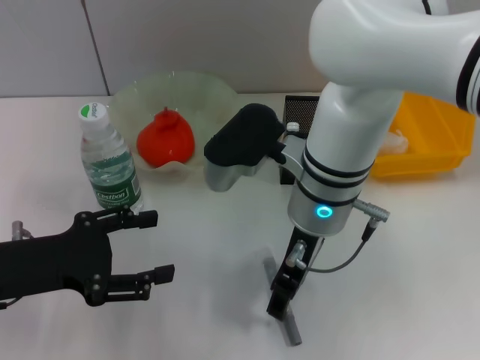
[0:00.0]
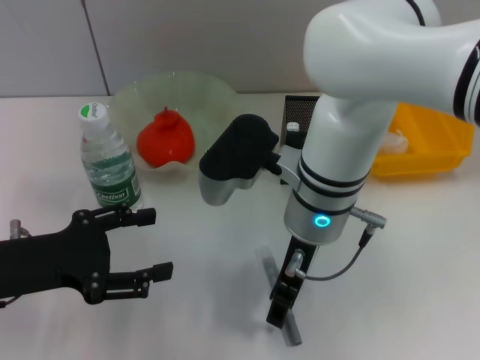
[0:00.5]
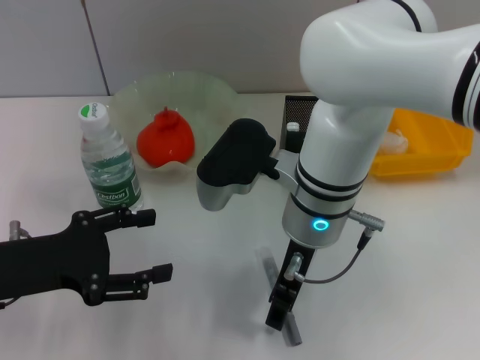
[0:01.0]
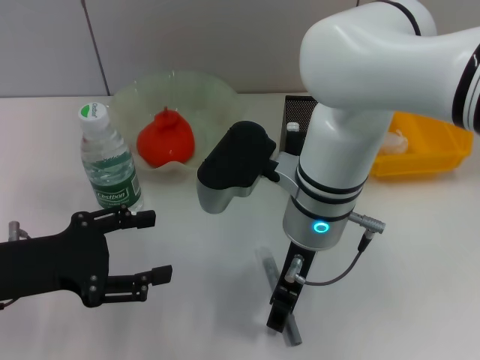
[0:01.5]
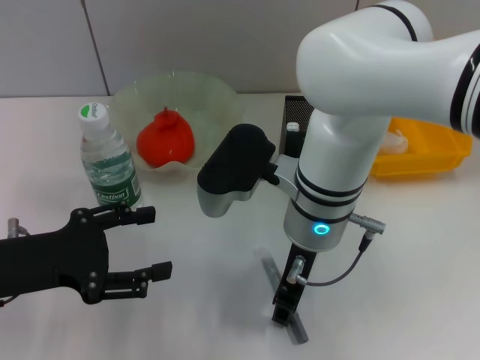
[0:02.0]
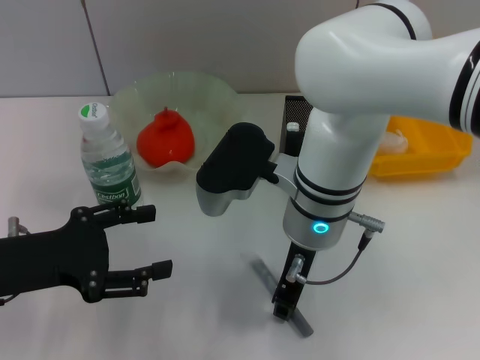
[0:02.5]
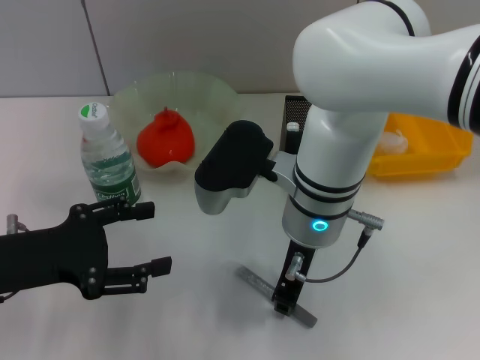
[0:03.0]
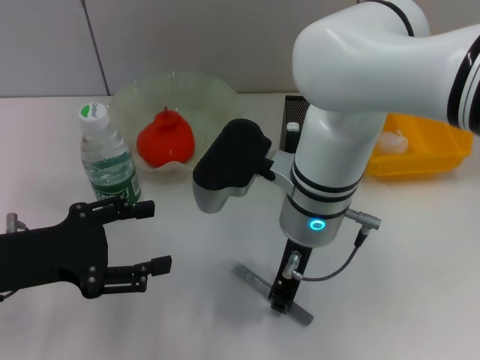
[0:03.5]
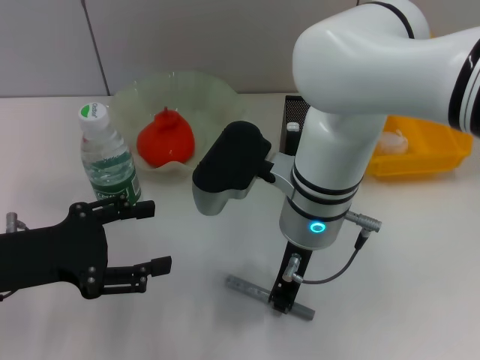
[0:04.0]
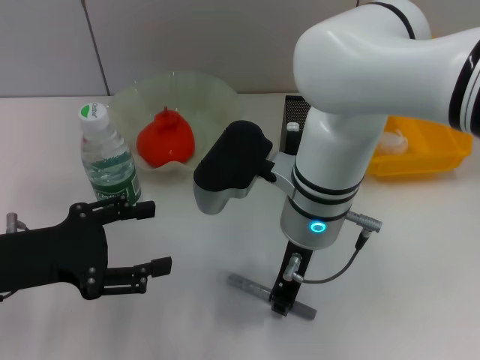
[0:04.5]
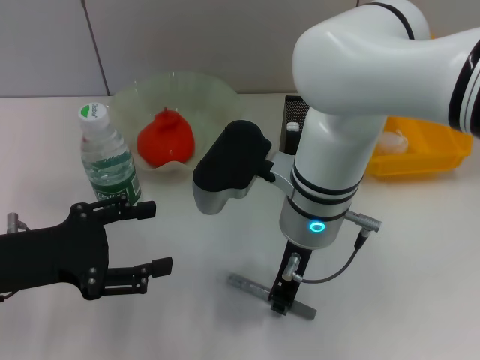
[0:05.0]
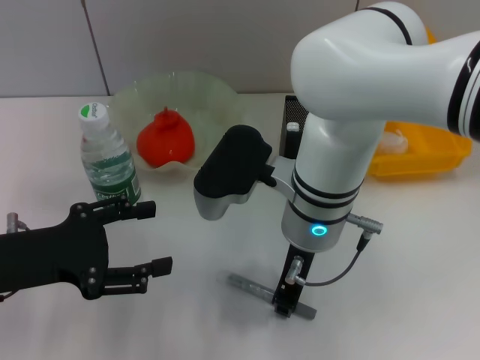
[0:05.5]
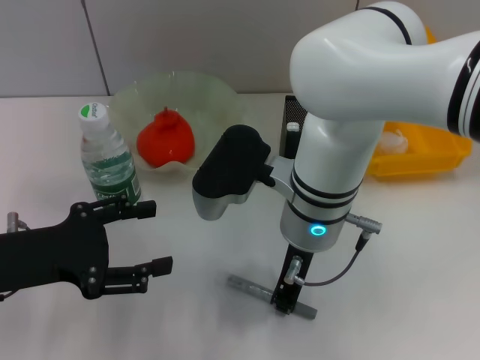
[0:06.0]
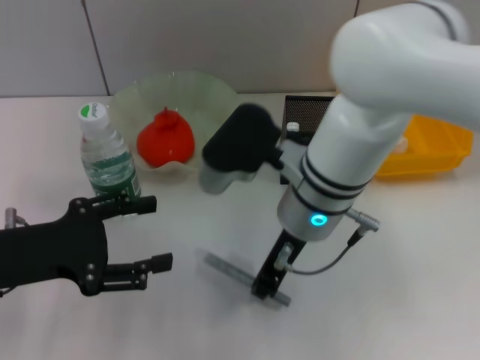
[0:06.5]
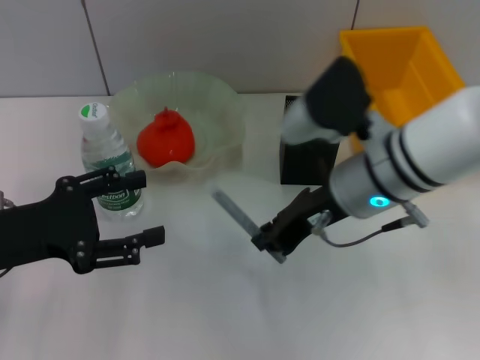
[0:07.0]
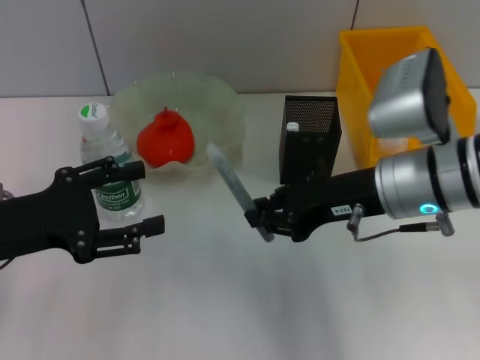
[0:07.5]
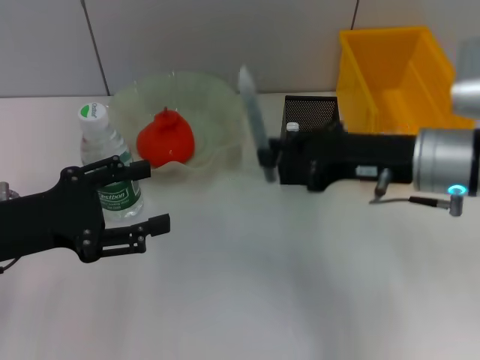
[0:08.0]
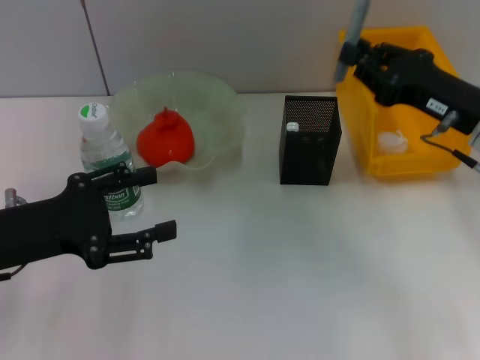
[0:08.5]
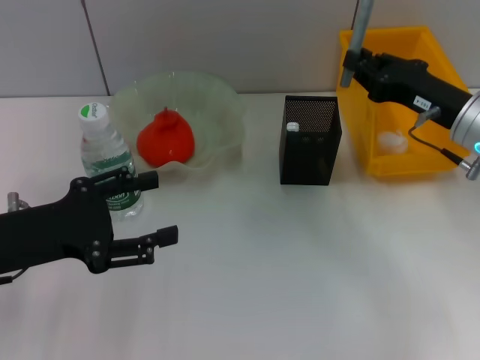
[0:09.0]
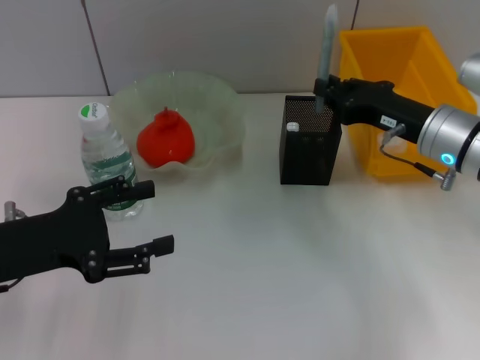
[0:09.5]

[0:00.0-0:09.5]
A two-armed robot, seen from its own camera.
Step, 0:00.0 to 0:06.0: Grab the gray glue with the right hand.
0:00.0 to 0:02.0: The grippers make only small movements.
0:02.0 to 0:04.0: The right gripper closes its fingers.
0:04.0 to 0:05.5: Both grippers stay put.
0:05.5 to 0:07.5: The right gripper goes about 10 cm to the right.
0:07.5 to 0:09.5: The right gripper shifts roughly 10 cm to the right, forward and downward.

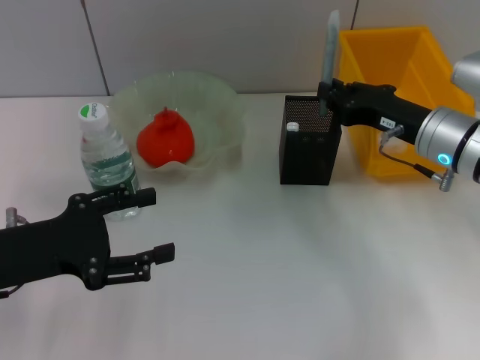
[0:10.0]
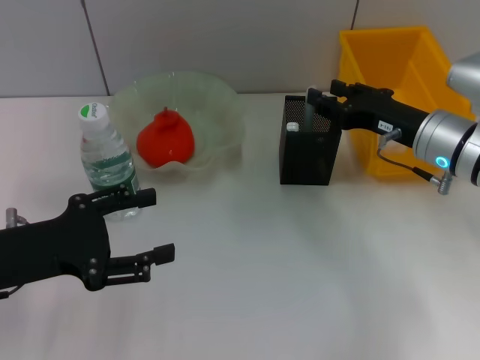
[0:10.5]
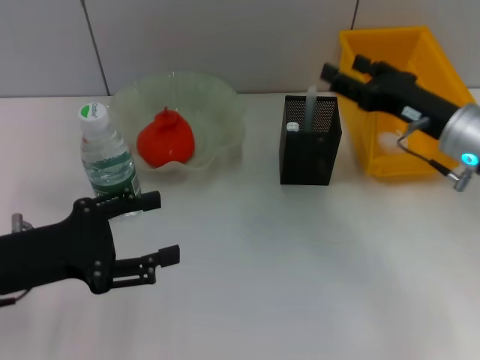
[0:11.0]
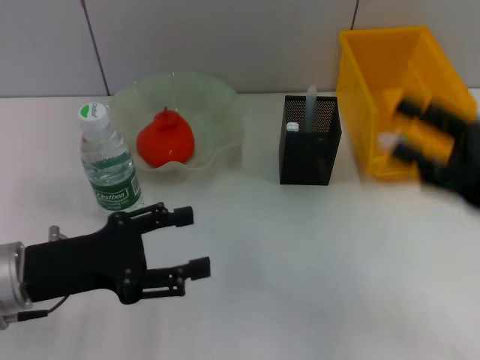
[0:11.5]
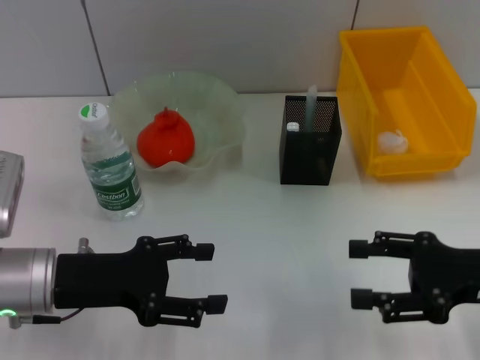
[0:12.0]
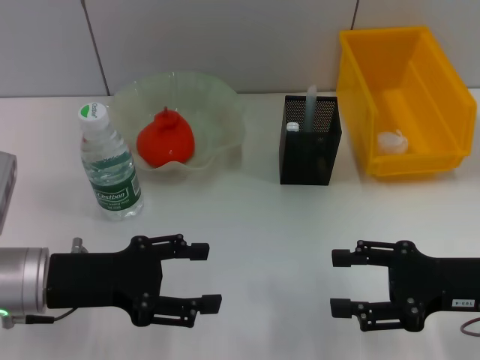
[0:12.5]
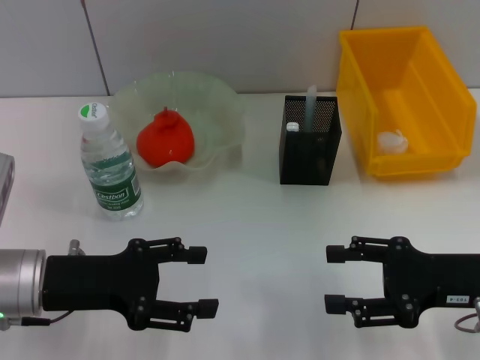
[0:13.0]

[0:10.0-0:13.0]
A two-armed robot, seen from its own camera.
0:10.0 to 0:11.5: The right gripper heads backward and to the right, covering roughly 15 cm, and opens.
0:11.5 to 0:13.0: The right gripper moves about 5 cm.
